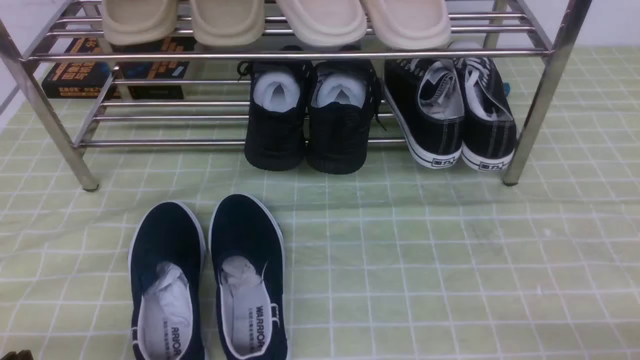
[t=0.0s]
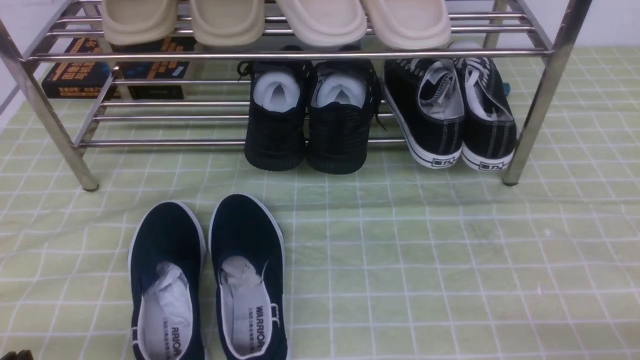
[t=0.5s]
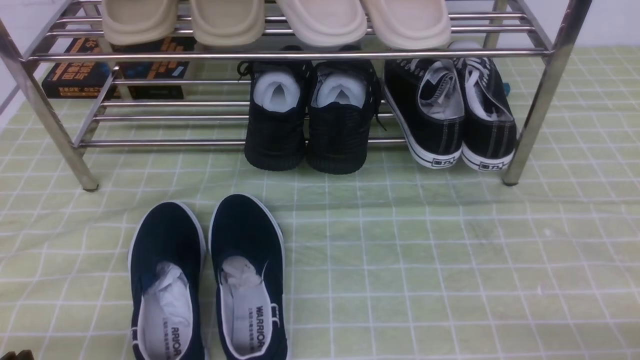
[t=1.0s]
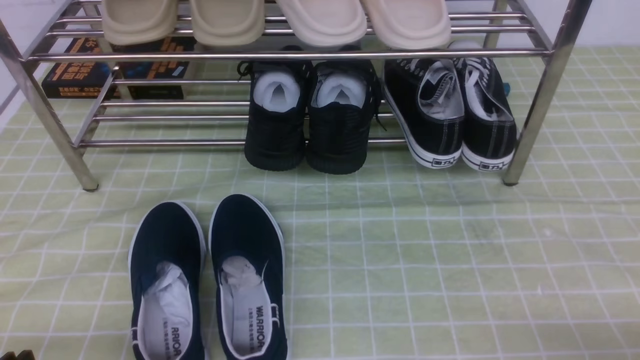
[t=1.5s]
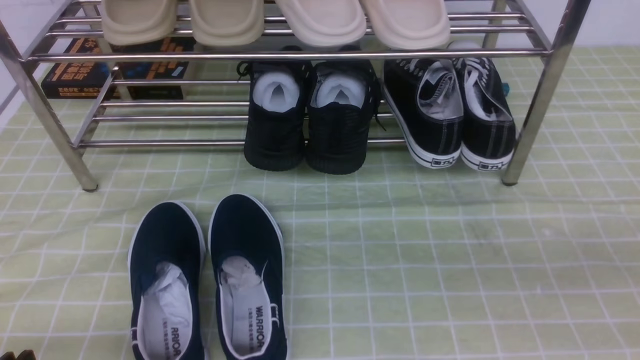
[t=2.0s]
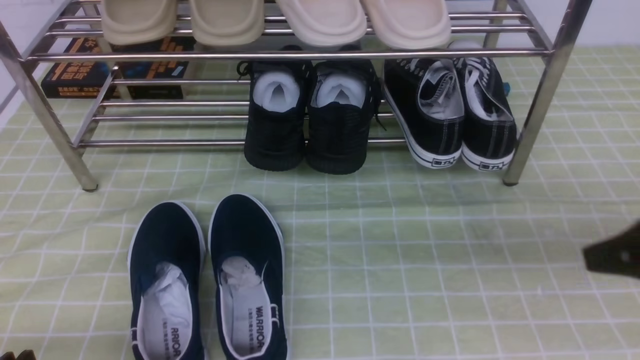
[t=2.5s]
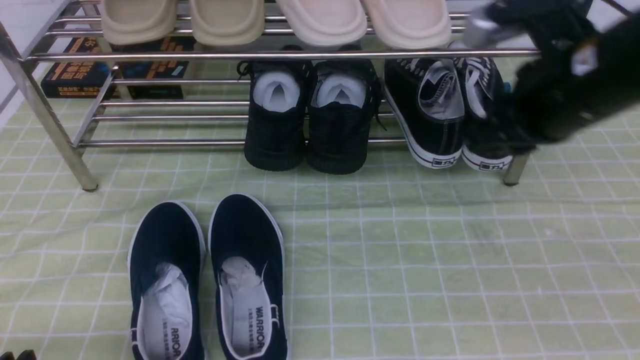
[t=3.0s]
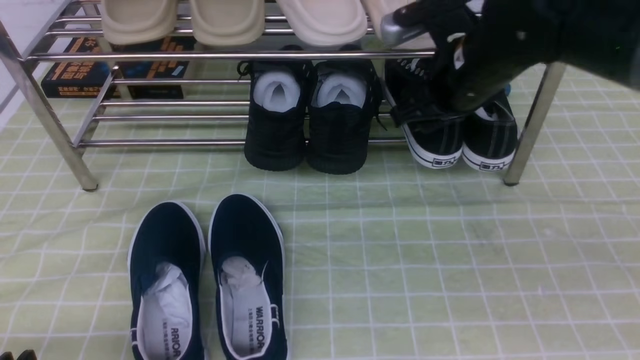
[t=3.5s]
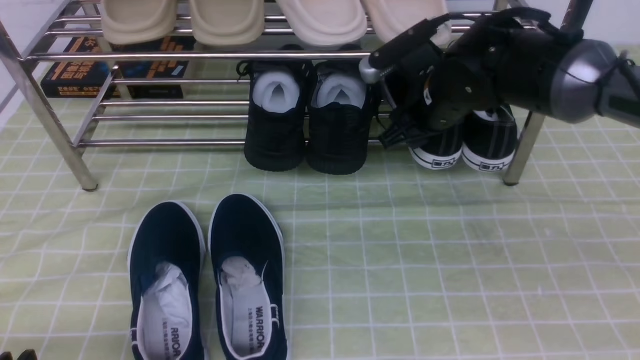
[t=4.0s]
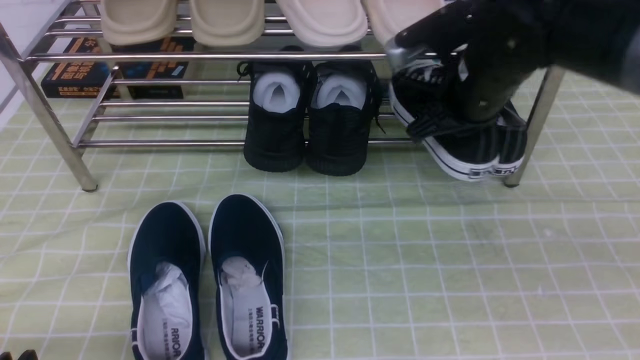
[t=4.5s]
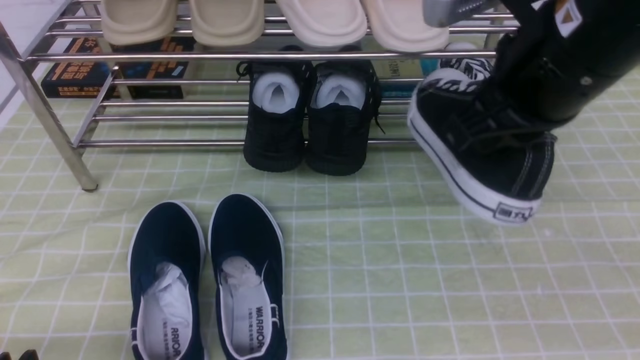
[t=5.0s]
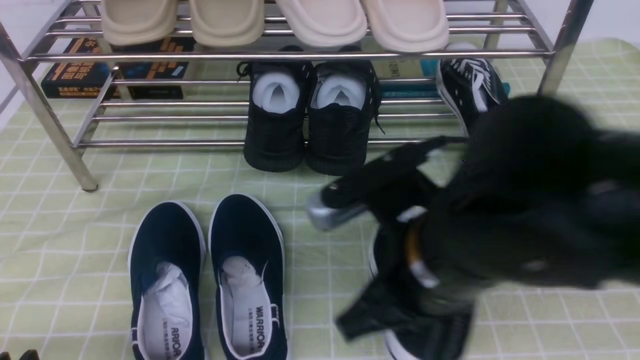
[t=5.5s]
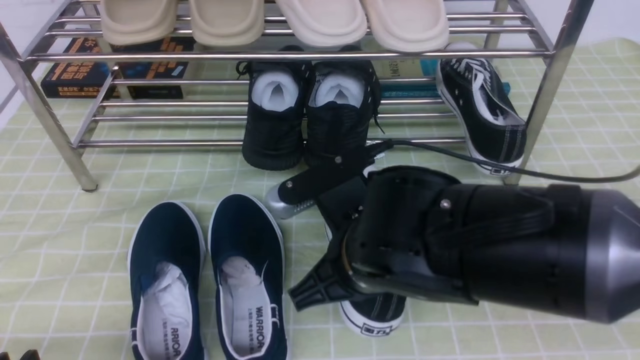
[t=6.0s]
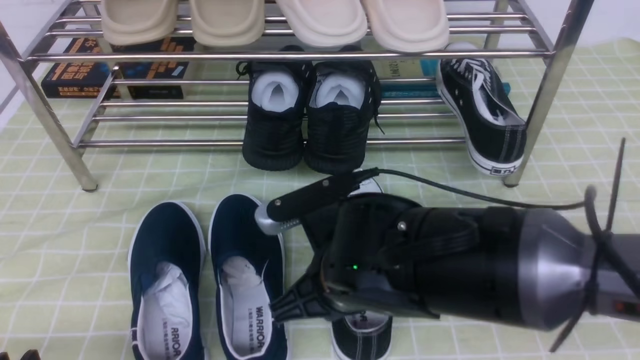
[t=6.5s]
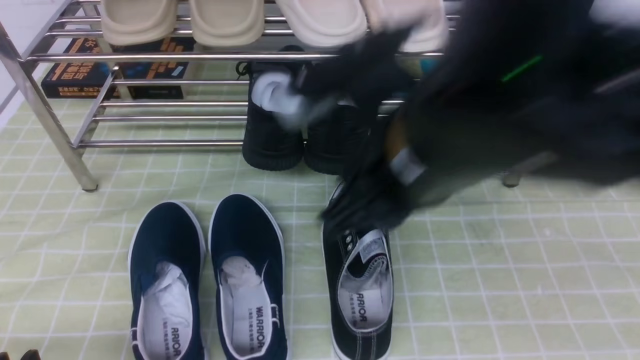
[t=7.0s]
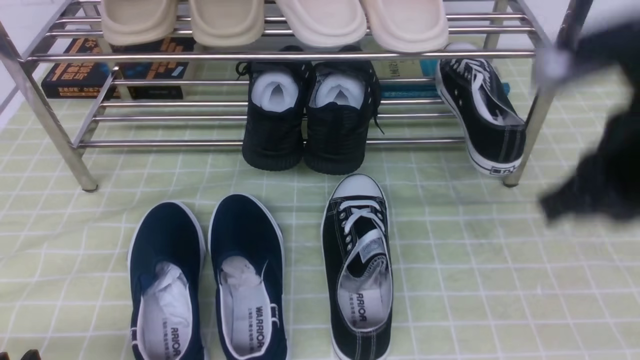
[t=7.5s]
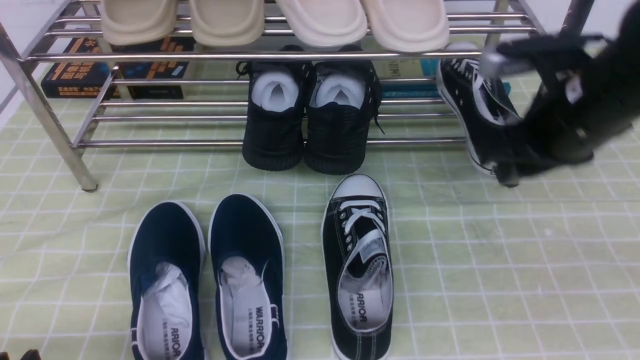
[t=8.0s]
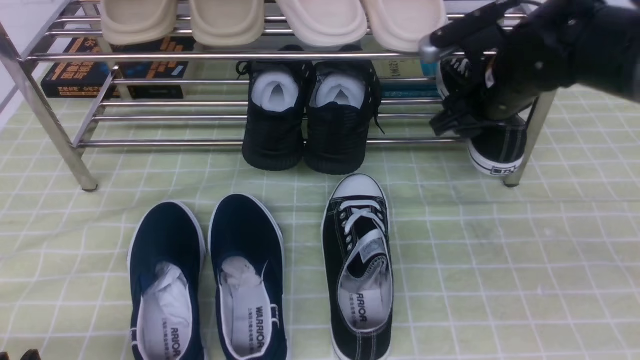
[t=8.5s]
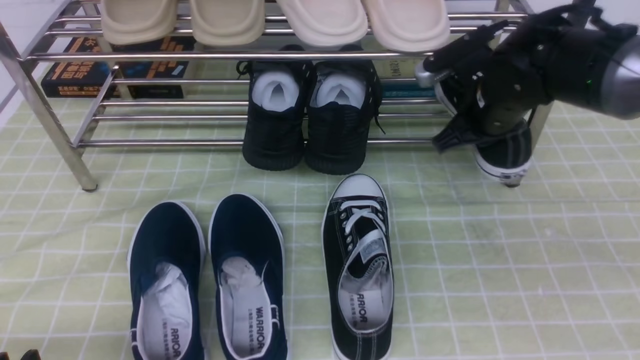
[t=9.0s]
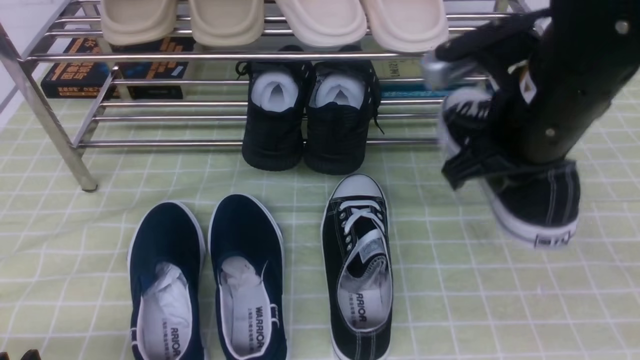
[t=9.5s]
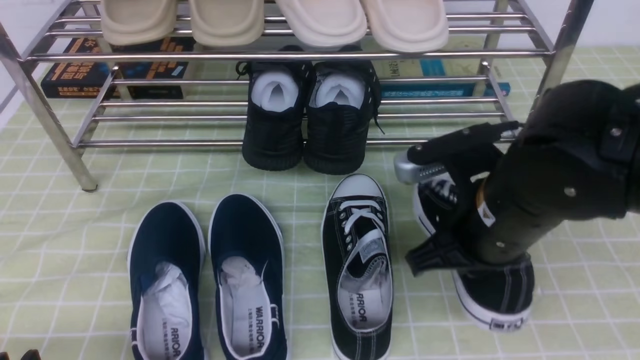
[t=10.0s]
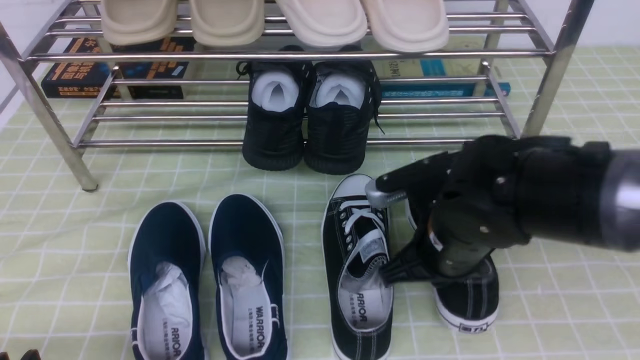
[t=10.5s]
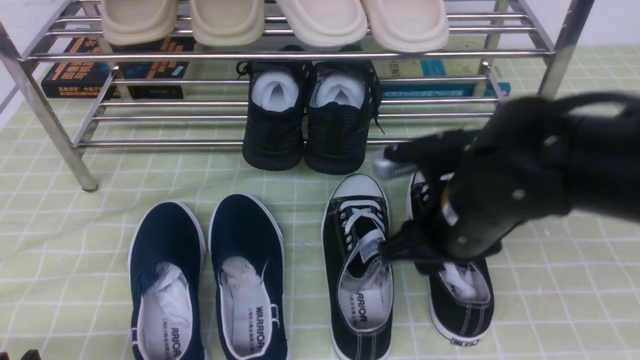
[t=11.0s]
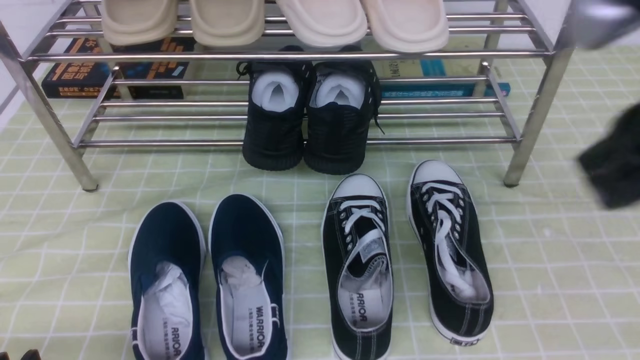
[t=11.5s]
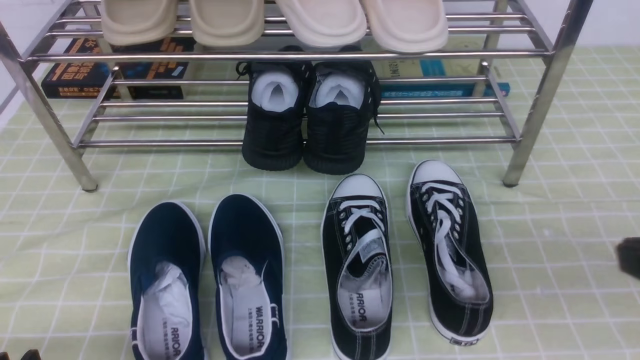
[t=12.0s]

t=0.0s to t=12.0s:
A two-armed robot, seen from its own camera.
Step, t=0.0s to t=4.0s: use the right arm to clamp a shoe on the right side of the shoe rack.
Step, t=4.5s to t=6.5s: use the right arm to take out the clamped shoe from the shoe rack and put it down.
Step, t=7.0s to t=8.5s: use the right arm to clamp a shoe on the right side of the shoe rack.
Step, t=9.0s to t=11.0s: use the right arm to take out the clamped shoe from the shoe rack and put it down.
t=0.0s to t=2.0s: The right gripper moves upward, some 15 cm, and closes its fingers.
t=2.0s to t=4.0s: The right gripper goes about 35 cm forward and to the left, and opens up.
t=4.0s to t=6.0s: The right gripper travels backward and to the left by about 20 cm, and closes.
t=6.0s to t=8.0s: The right gripper heads to the right and forward, covering about 20 cm, and opens.
t=8.0s to t=10.0s: The right gripper is displaced backward and to the left by roughly 10 cm, and closes.
t=10.0s to t=12.0s: The right gripper moves up and down over approximately 20 cm, changing direction 2 times, and opens and closes again.

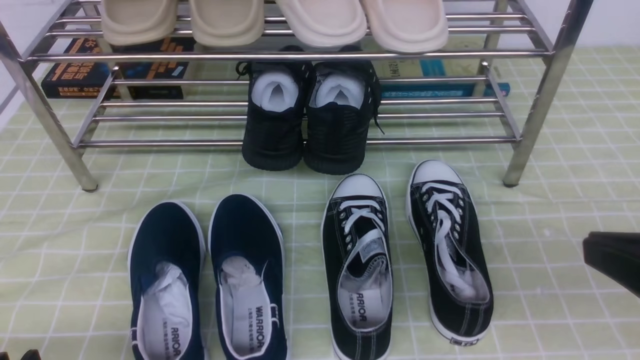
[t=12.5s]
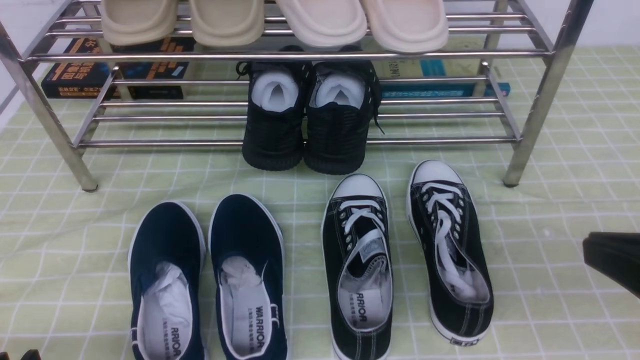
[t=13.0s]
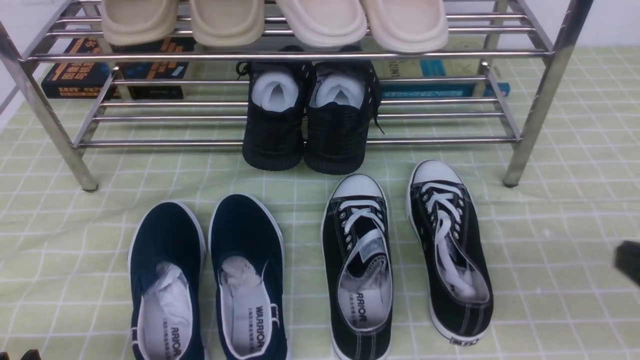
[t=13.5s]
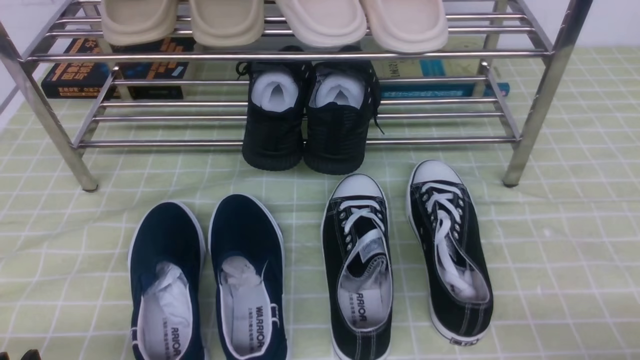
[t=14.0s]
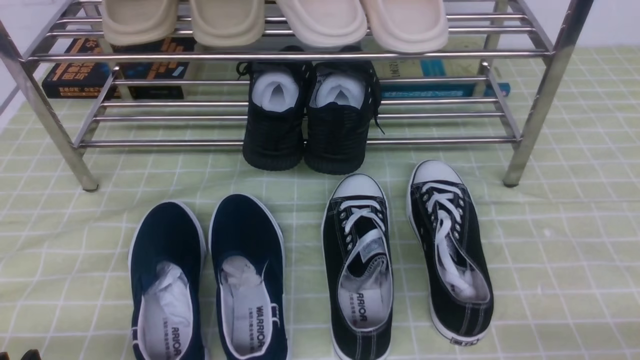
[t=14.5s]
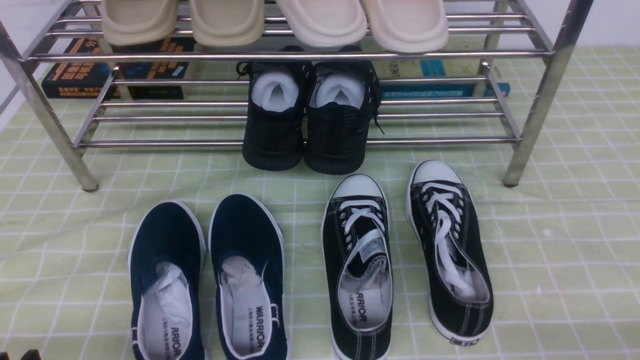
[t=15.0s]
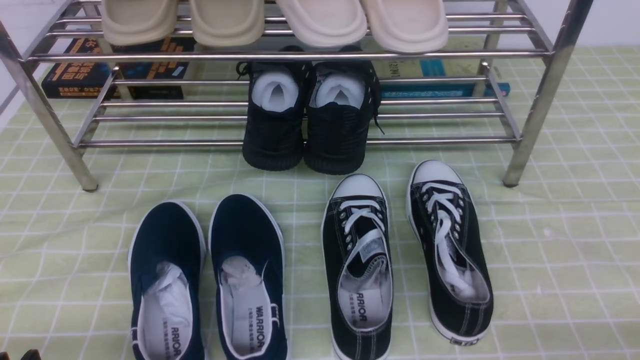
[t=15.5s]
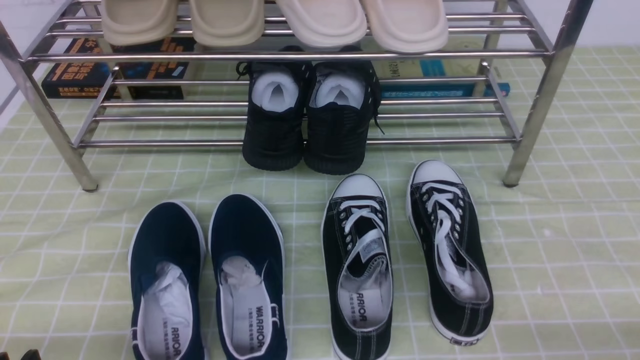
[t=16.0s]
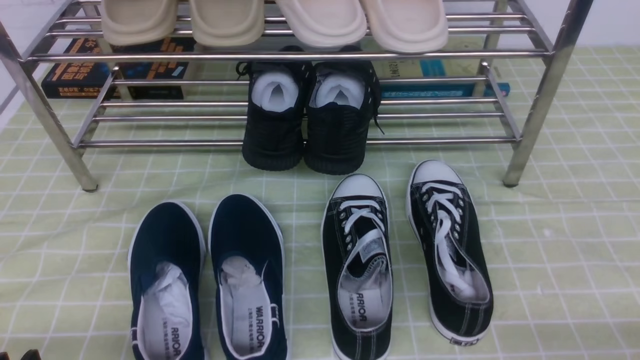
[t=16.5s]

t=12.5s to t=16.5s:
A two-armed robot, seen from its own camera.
t=12.5s to t=14.5s: The right gripper moves downward and to the right, roughly 15 cm.
t=14.5s to t=16.5s: Both grippers stay about where they are.
